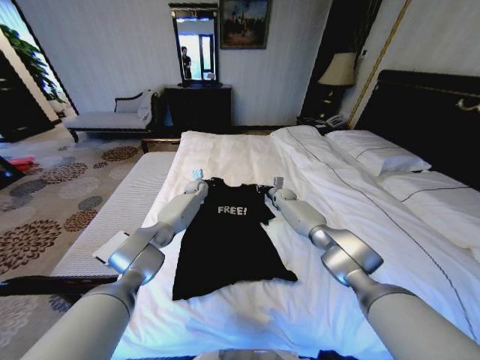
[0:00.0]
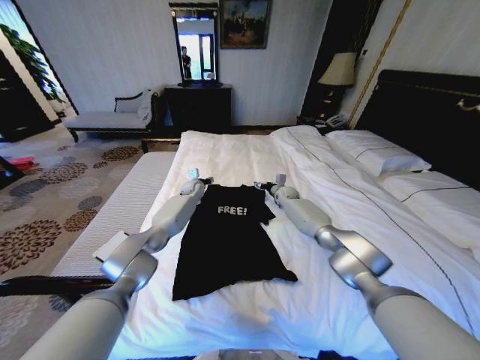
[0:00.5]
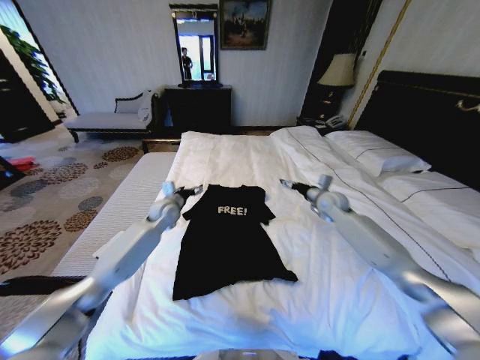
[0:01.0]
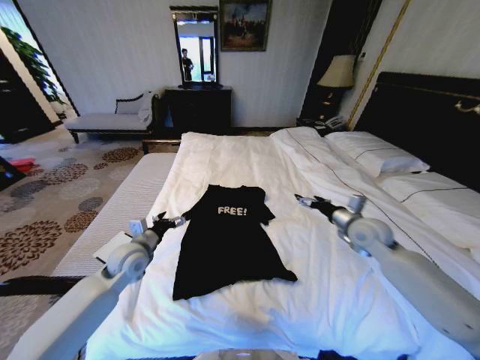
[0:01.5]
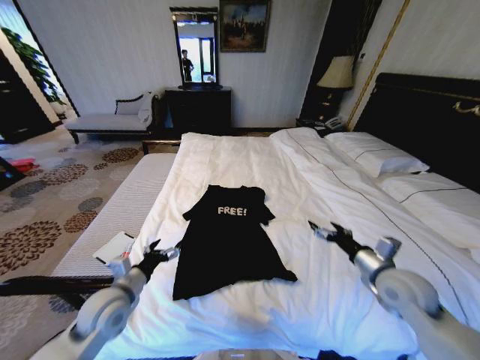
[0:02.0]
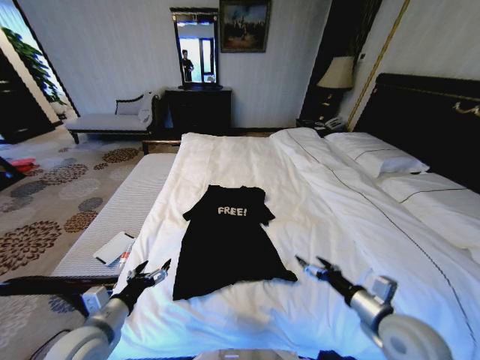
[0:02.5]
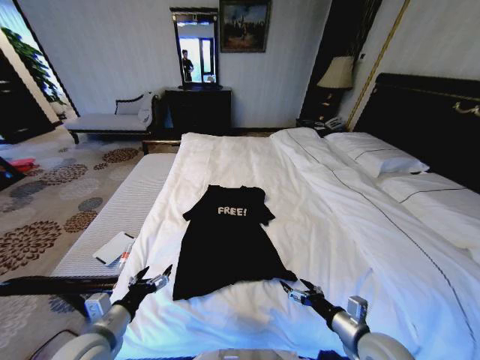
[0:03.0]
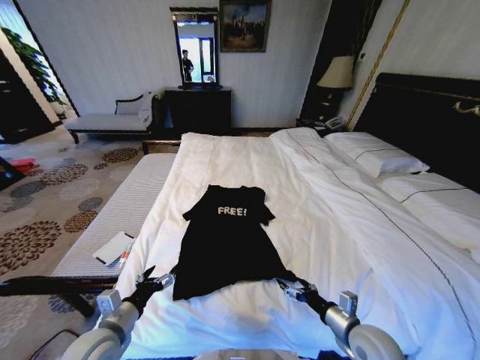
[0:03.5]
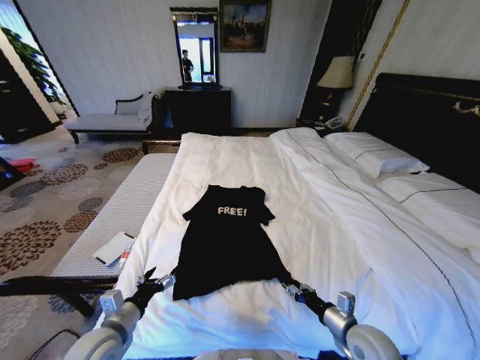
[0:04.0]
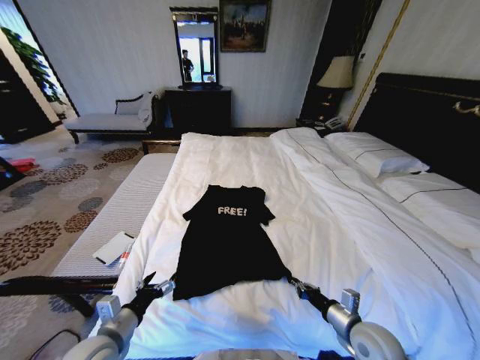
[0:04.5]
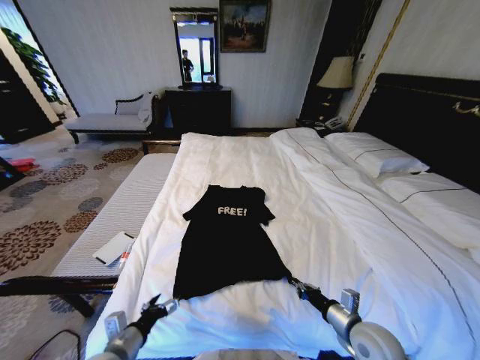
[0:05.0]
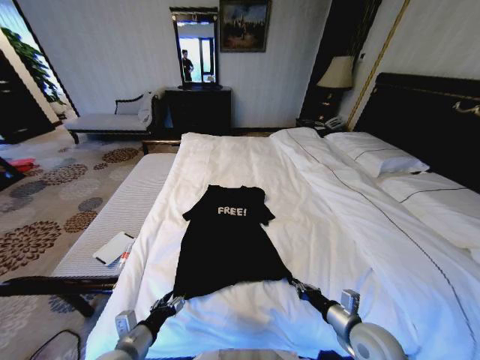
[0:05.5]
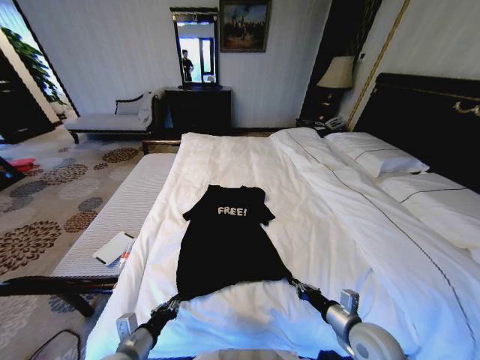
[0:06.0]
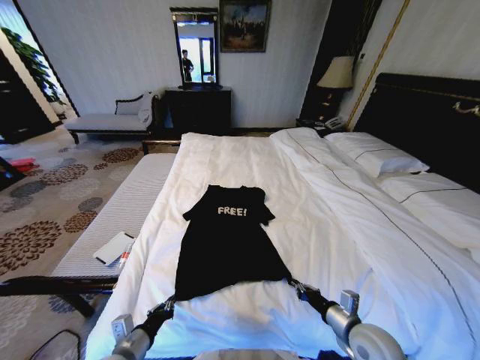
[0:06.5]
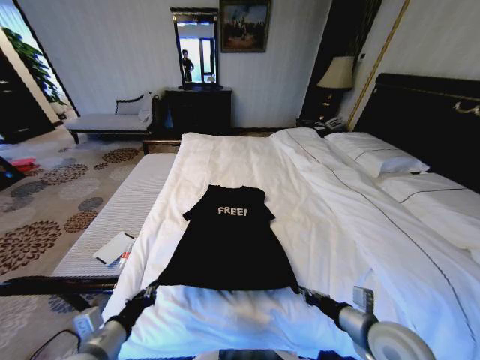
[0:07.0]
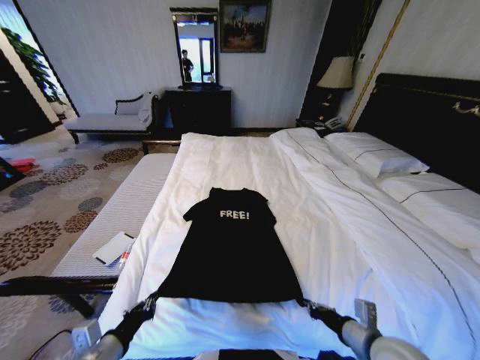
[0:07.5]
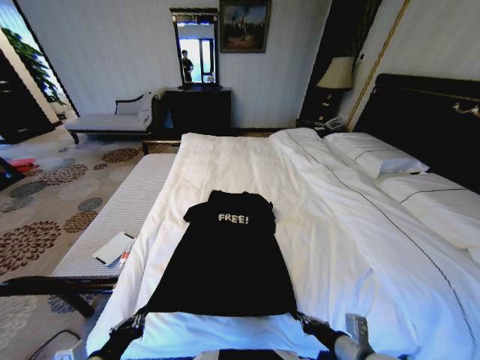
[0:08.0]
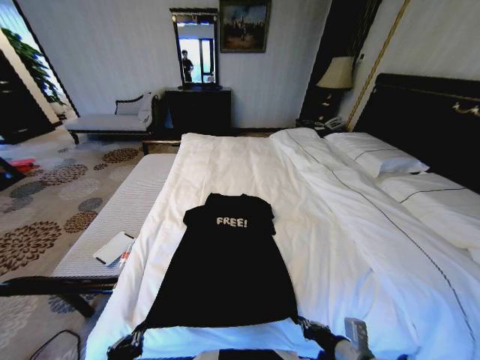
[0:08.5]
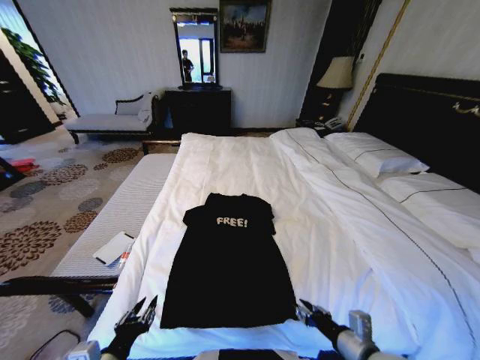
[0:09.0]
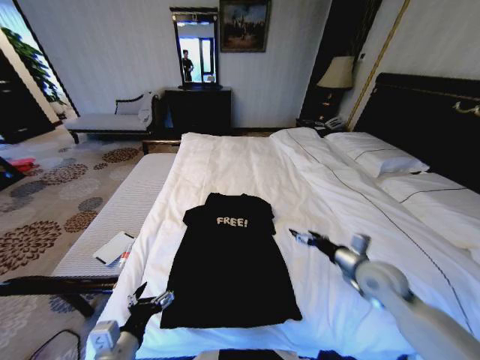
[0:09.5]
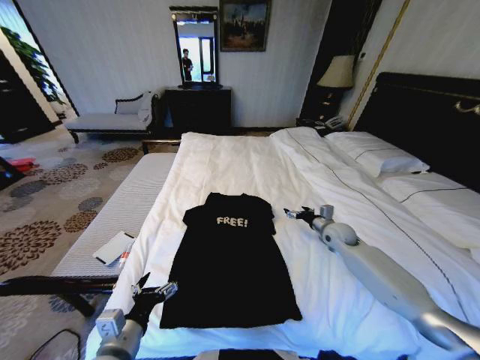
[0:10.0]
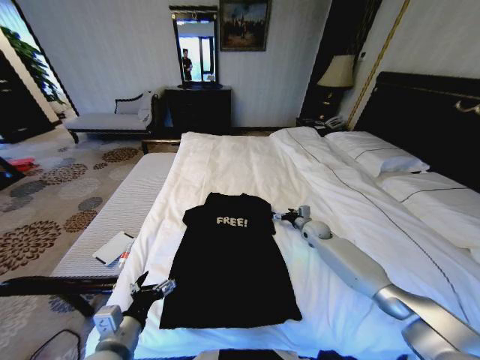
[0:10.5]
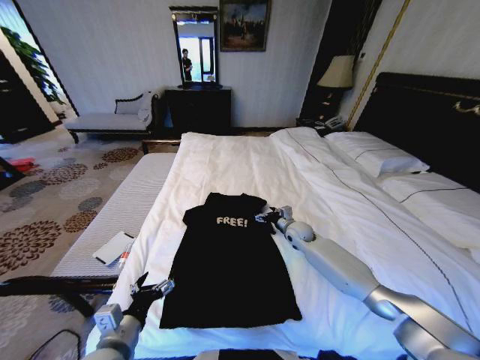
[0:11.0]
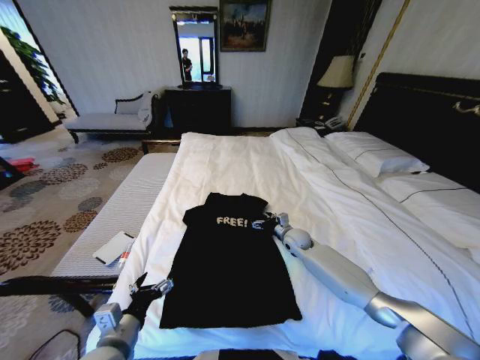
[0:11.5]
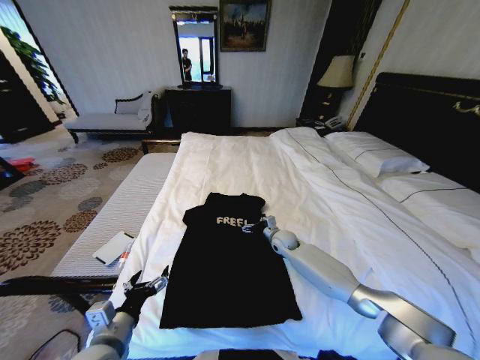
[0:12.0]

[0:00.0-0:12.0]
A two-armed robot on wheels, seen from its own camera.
Task of the whole recording: Fold the clothes on the bed.
0:00.0 to 0:02.0: The grippers both shift backward by some 40 cm. The left gripper opens up. Meanwhile the right gripper opens up.
0:02.0 to 0:04.0: The left gripper is displaced backward by approximately 10 cm. The right gripper travels downward, backward and to the left by about 15 cm, and closes up.
0:04.0 to 0:06.0: The left gripper moves some 5 cm, and closes its fingers. Meanwhile the right gripper closes up.
0:06.0 to 0:08.0: The left gripper shifts some 10 cm upward and backward; the right gripper is displaced backward by about 5 cm.
0:08.0 to 0:10.0: The right gripper shifts approximately 35 cm forward, and opens its fingers; the left gripper moves to the right and forward, about 10 cm, and opens up.
0:10.0 to 0:12.0: The right gripper travels to the left and downward by some 20 cm.

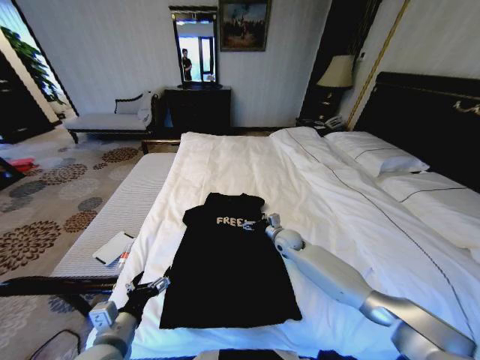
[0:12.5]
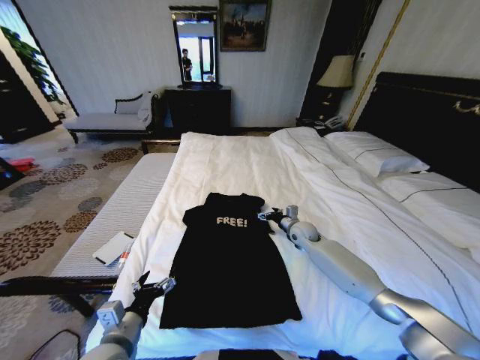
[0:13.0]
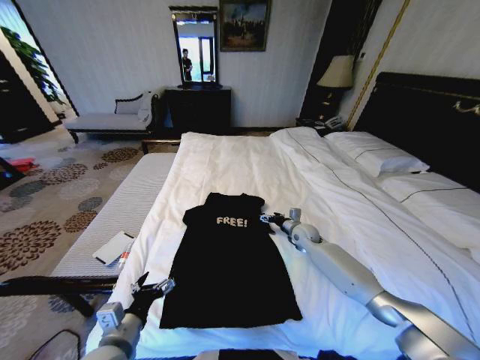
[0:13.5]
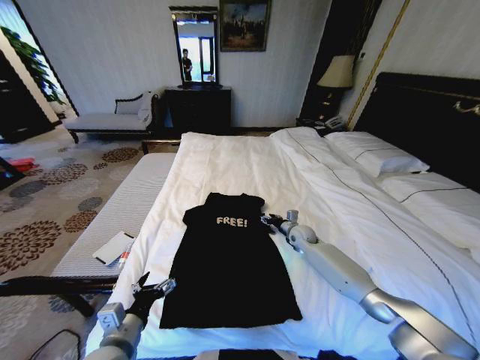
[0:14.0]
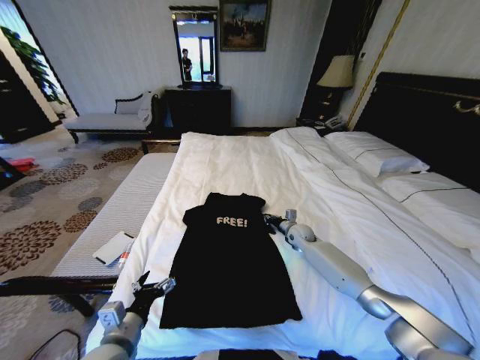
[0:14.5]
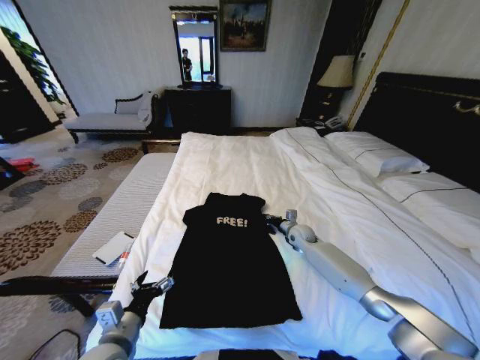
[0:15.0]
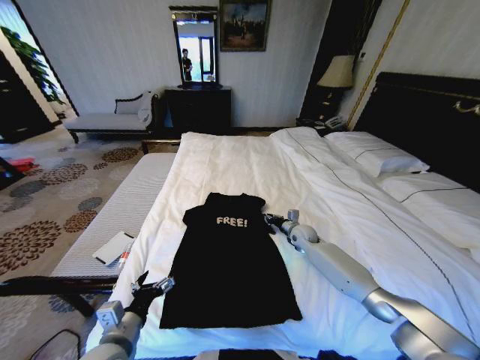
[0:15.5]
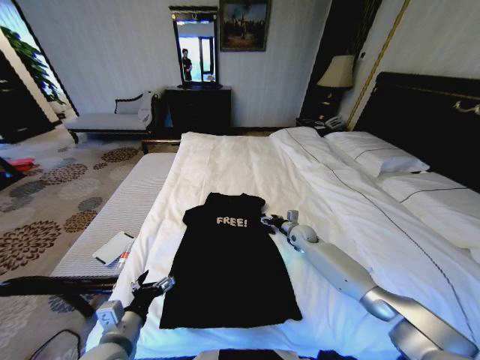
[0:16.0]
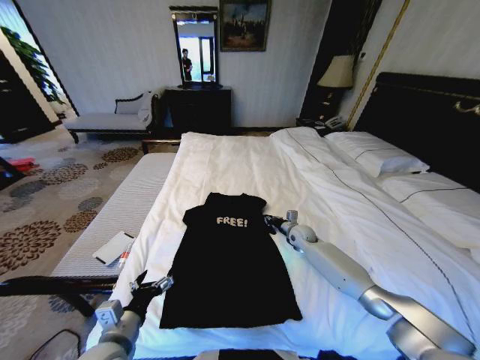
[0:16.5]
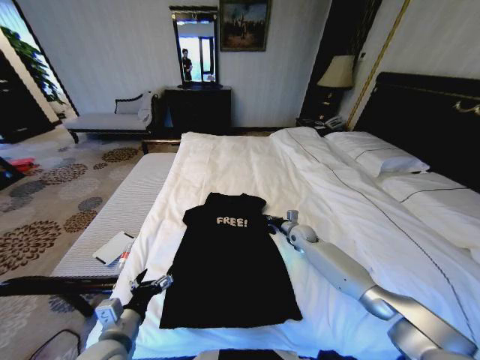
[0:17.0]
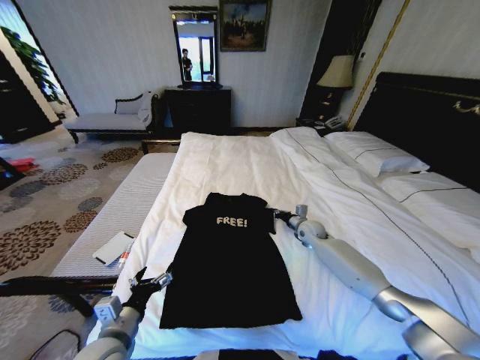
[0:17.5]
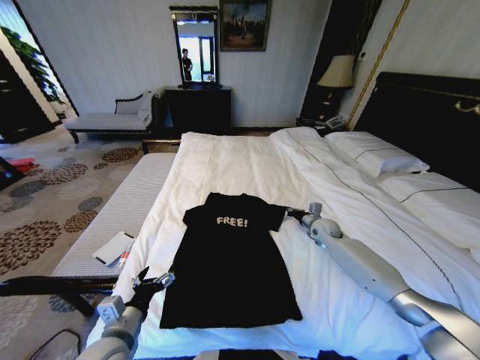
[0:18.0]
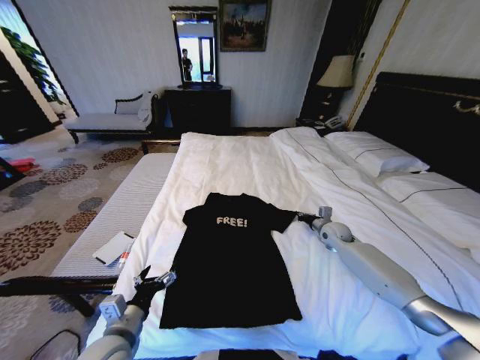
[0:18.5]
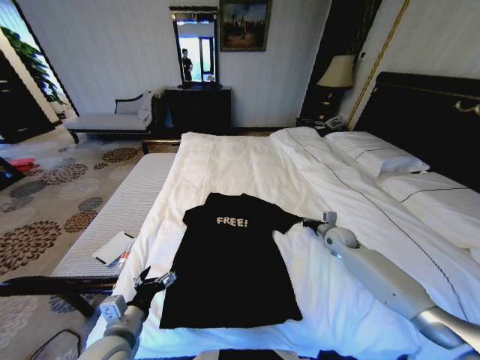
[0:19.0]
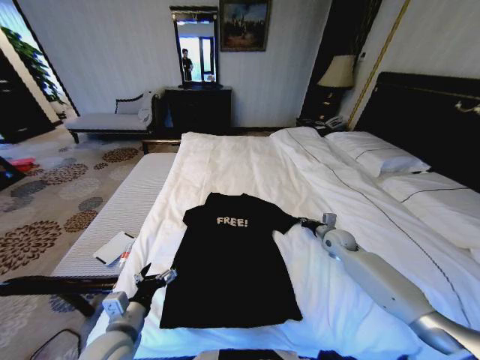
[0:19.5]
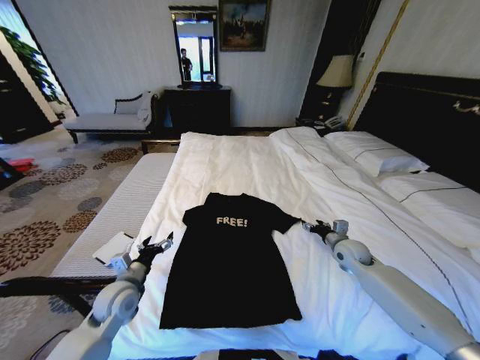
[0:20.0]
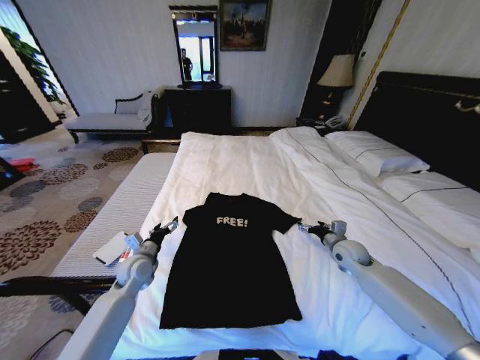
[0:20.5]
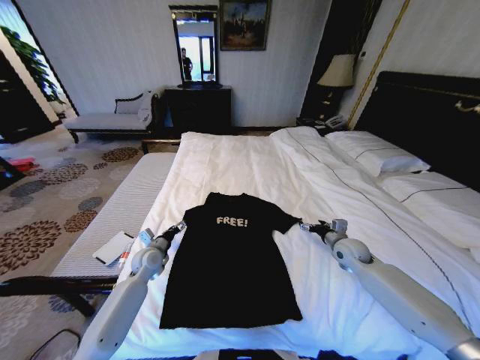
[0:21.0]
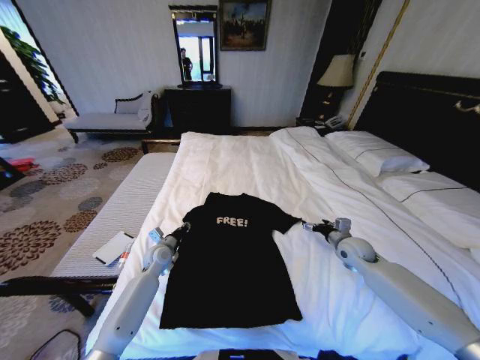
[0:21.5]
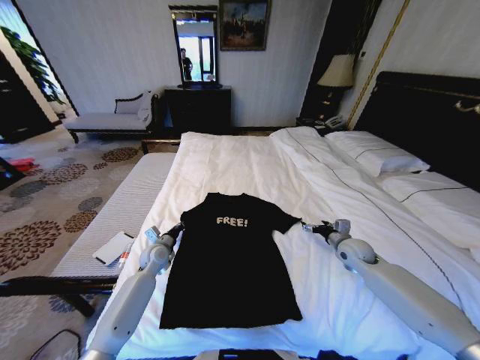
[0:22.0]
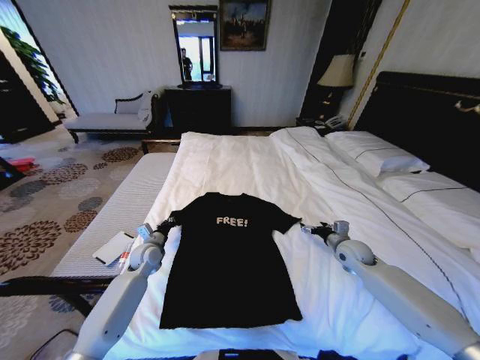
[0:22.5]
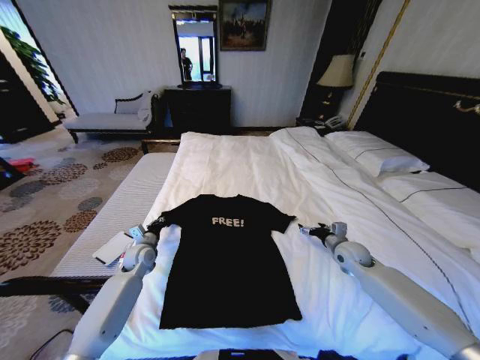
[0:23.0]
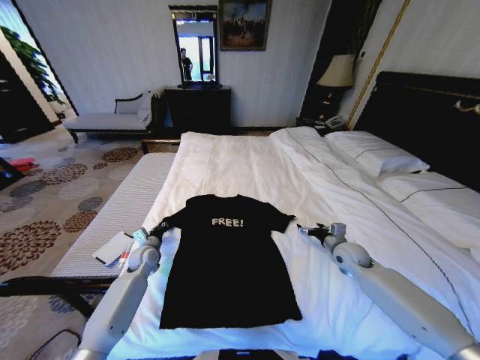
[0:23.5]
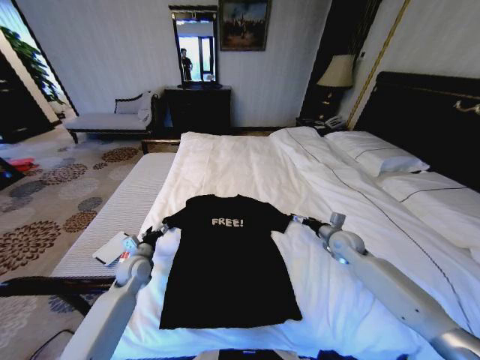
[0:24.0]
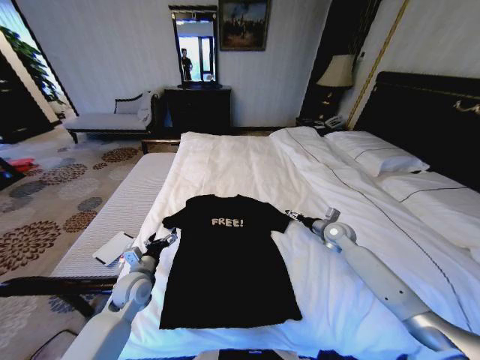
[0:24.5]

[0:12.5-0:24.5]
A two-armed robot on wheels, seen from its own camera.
Task of the whole recording: Fold the clothes on the bed.
0:12.5 to 0:14.5: The right gripper moves to the right, some 5 cm, and closes.
0:14.5 to 0:16.5: The right gripper opens and closes again.
0:16.5 to 0:18.5: The right gripper travels to the right by roughly 10 cm.
0:18.5 to 0:20.5: The left gripper is displaced forward by approximately 20 cm; the right gripper travels backward by roughly 10 cm, and opens.
0:20.5 to 0:22.5: The left gripper heads forward, covering some 5 cm, and closes up.
0:22.5 to 0:24.5: The right gripper shifts about 5 cm forward, while the left gripper is displaced backward by some 10 cm, and opens up.

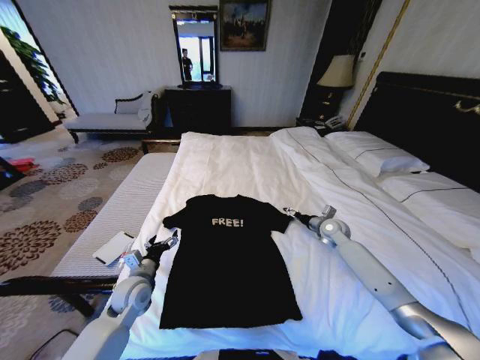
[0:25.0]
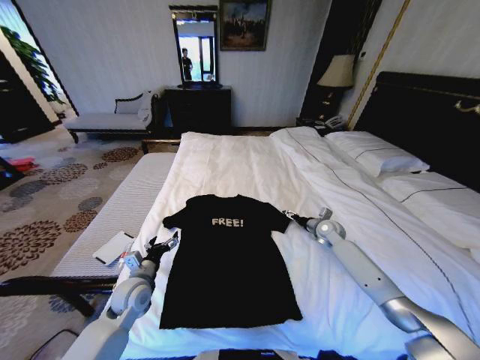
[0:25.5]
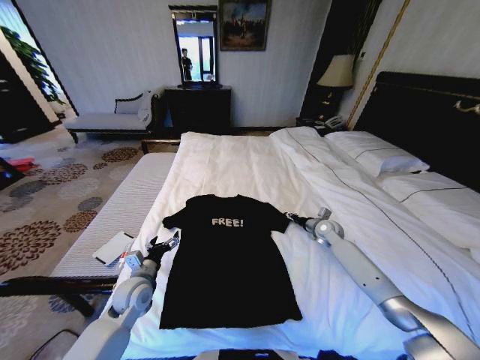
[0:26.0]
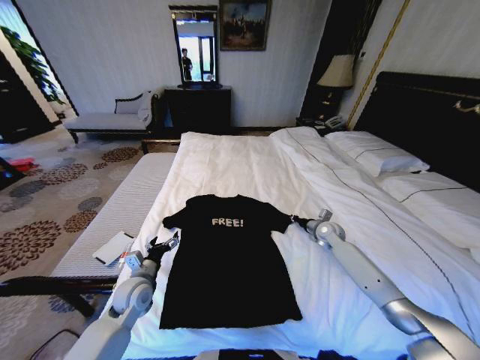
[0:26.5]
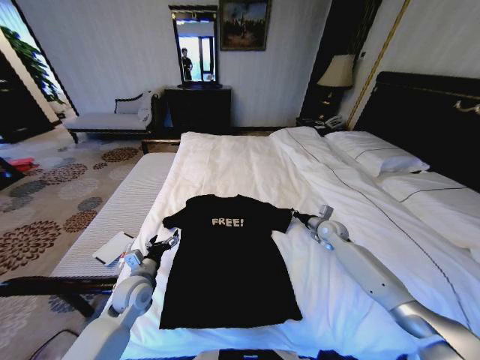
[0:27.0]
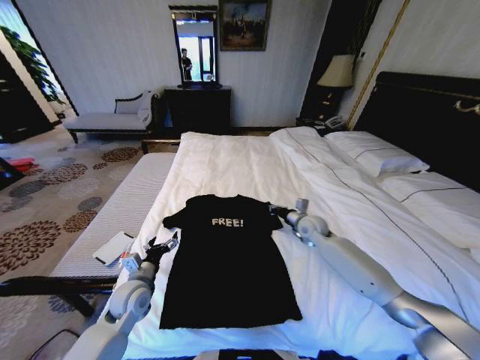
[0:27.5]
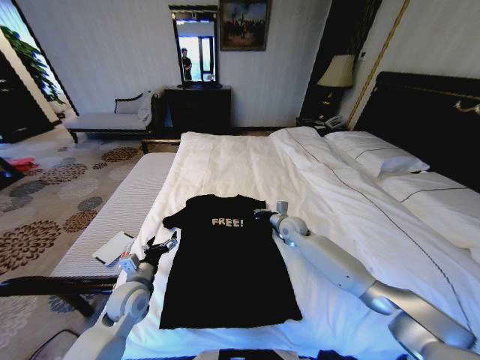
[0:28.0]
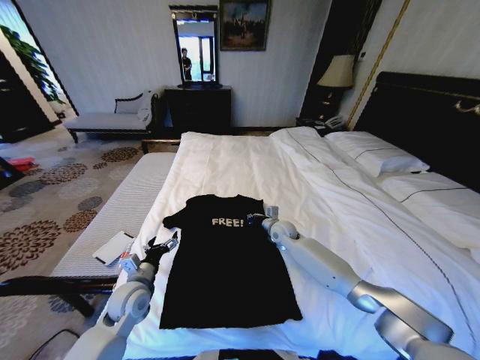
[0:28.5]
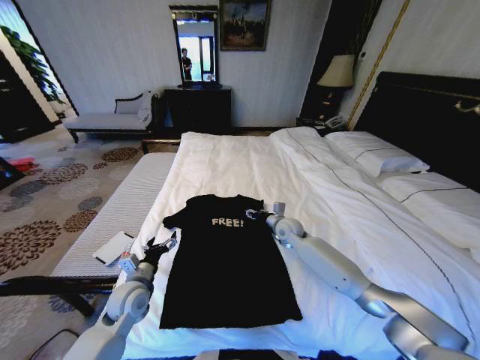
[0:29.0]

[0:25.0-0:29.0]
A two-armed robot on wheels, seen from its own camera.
Task of the whole recording: Fold the clothes on the bed.
0:25.0 to 0:27.0: The right gripper closes.
0:27.0 to 0:29.0: The right gripper goes about 15 cm to the left, and opens.
